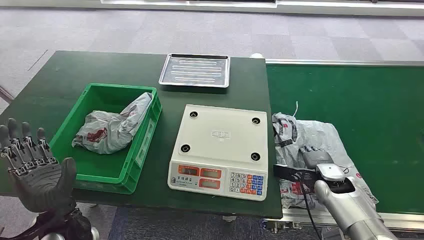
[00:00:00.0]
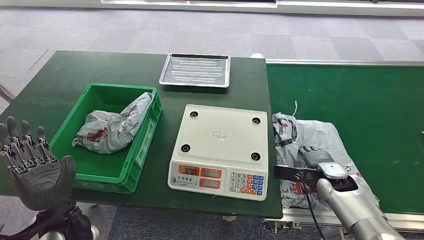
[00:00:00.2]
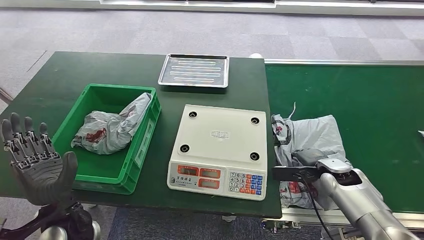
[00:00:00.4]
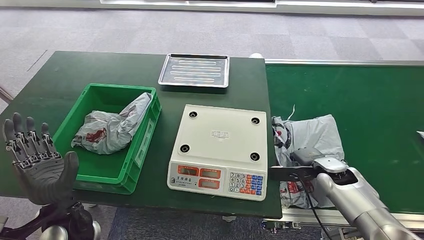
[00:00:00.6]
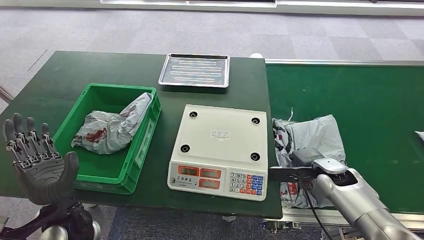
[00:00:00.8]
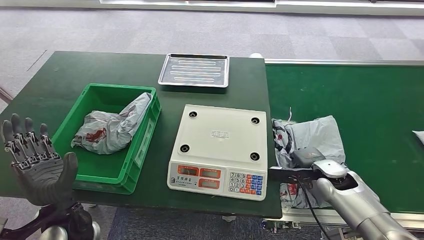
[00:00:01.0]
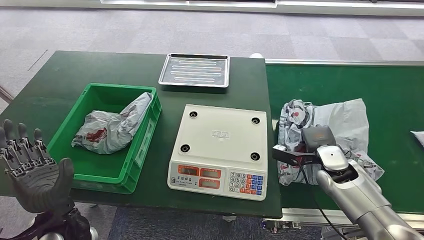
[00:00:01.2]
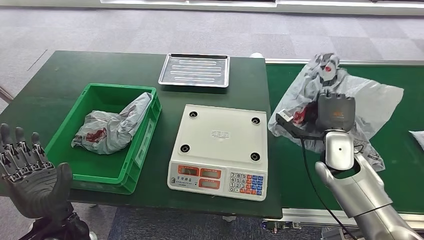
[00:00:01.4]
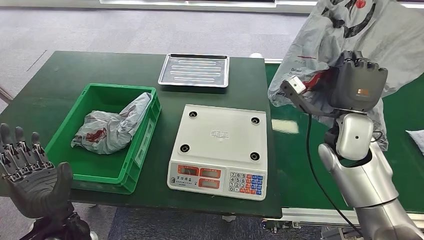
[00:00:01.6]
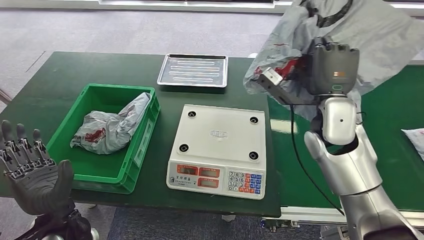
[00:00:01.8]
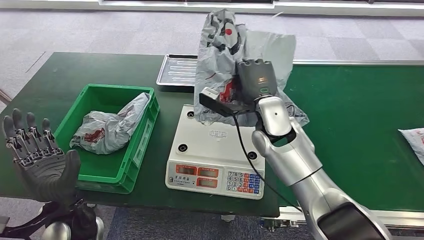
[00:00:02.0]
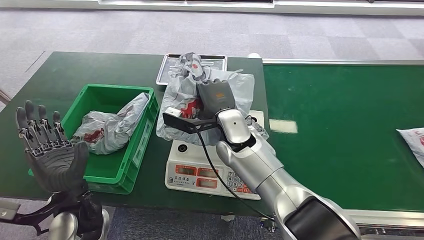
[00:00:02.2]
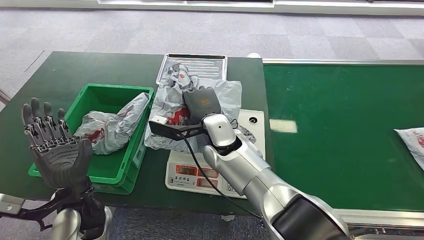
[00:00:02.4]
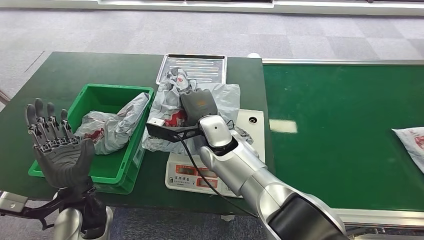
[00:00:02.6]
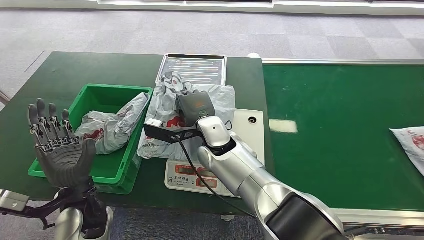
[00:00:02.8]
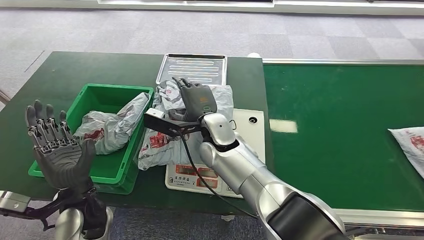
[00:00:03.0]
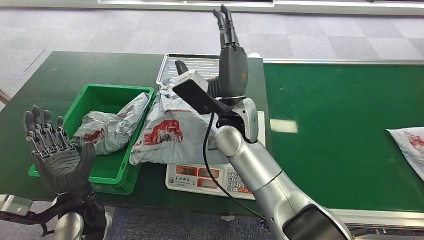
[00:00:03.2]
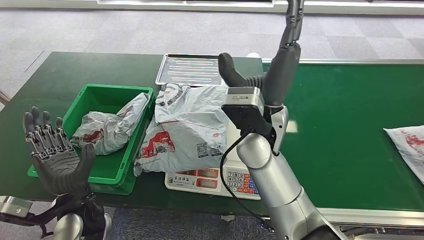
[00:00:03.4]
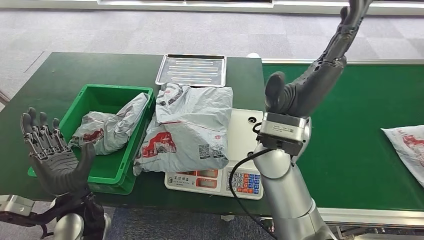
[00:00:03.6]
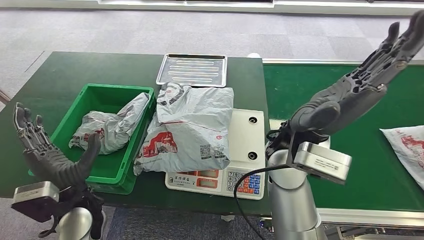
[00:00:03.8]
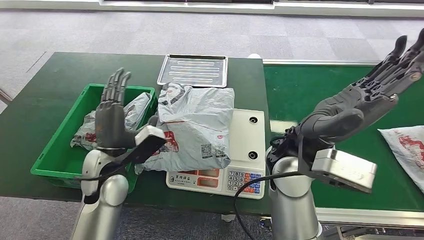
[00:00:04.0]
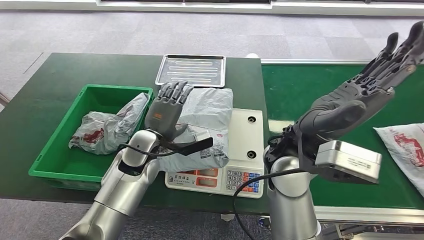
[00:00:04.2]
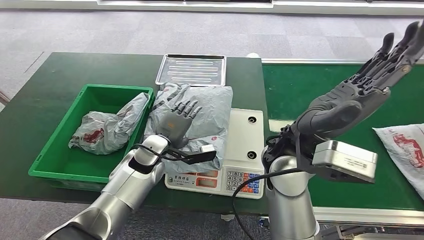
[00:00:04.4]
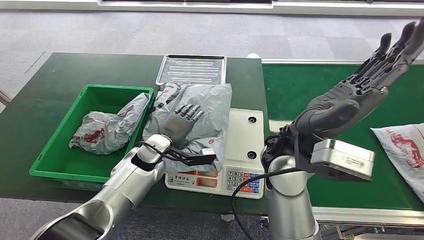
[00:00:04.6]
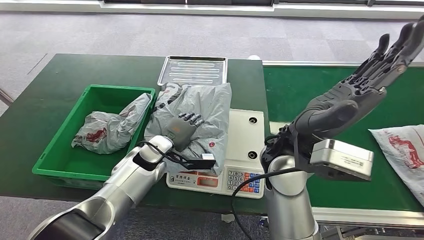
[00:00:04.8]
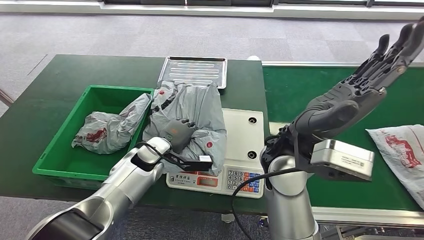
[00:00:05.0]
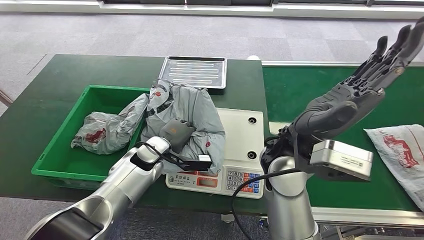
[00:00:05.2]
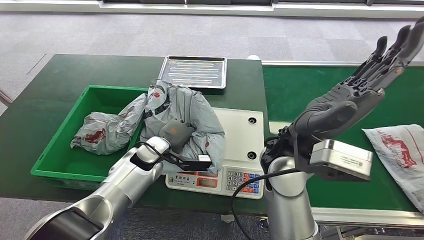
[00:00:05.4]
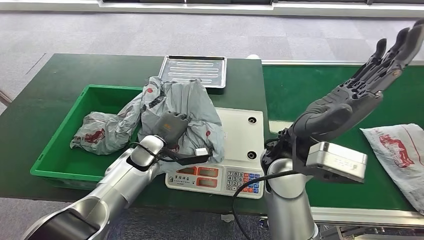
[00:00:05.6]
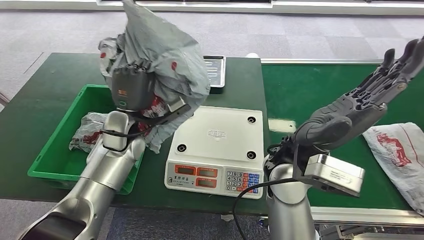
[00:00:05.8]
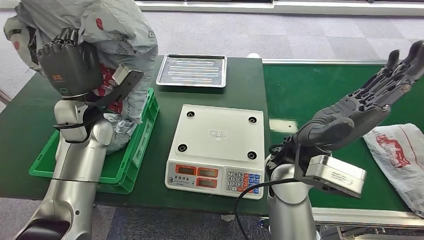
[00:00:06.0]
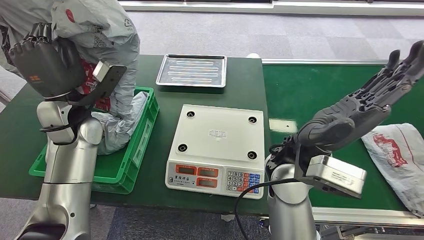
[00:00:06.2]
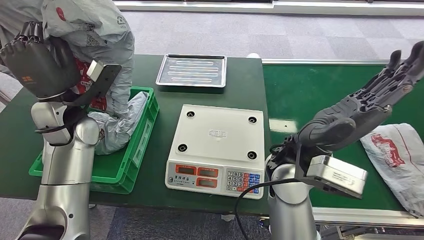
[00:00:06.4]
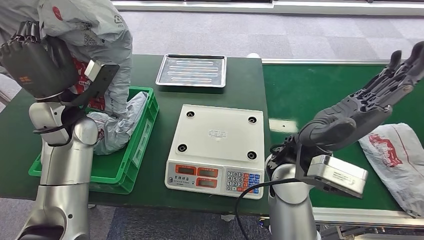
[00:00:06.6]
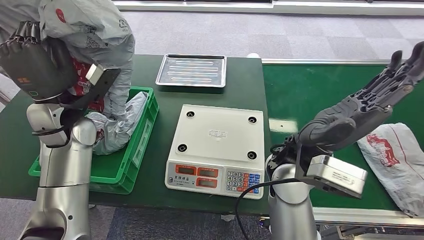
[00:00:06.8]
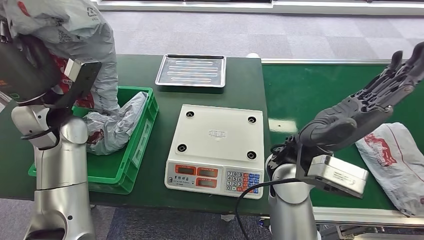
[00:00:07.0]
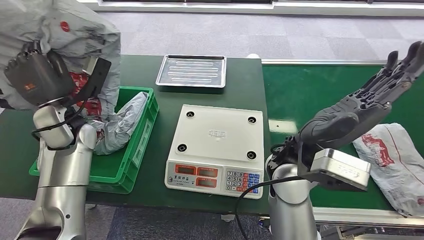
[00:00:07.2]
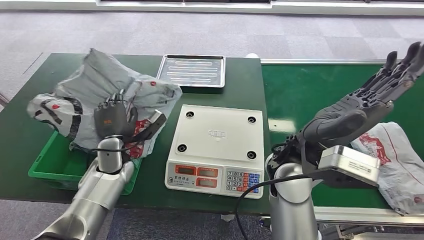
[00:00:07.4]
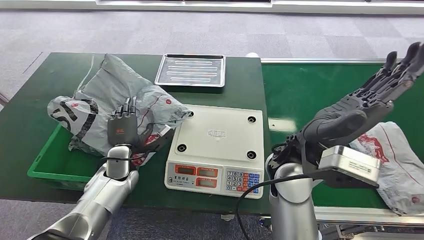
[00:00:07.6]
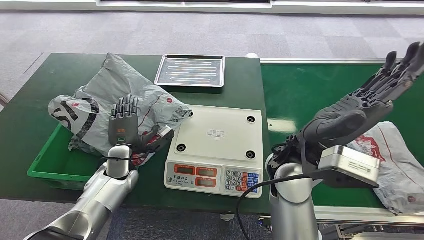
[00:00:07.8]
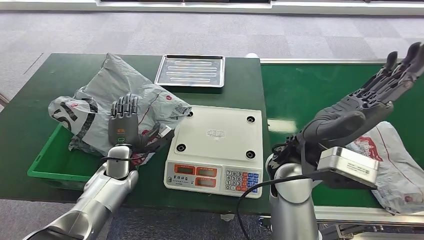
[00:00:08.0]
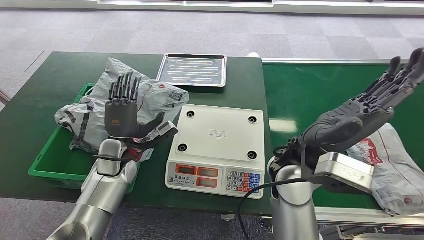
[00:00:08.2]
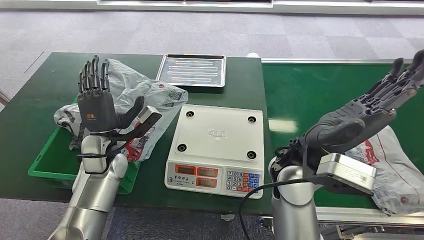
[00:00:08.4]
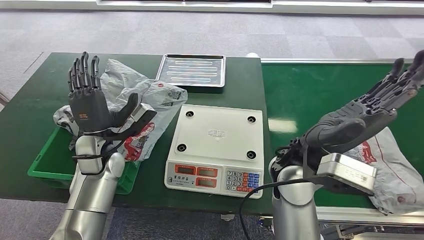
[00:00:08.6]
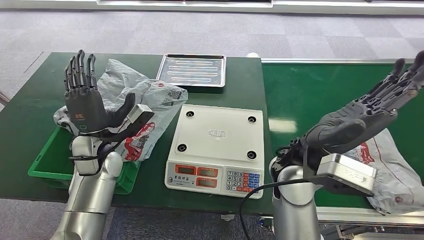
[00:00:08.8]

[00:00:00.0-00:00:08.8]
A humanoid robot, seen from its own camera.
Step, 00:00:00.0 to 00:00:01.8: Pick up the package from the conveyor belt.
Step, 00:00:02.0 to 00:00:03.6: Place the package onto the inbound machine.
Step, 00:00:03.8 to 00:00:06.4: Pick up the package from the inbound machine.
Step, 00:00:06.8 to 00:00:08.8: Place the package into the parcel locker.
